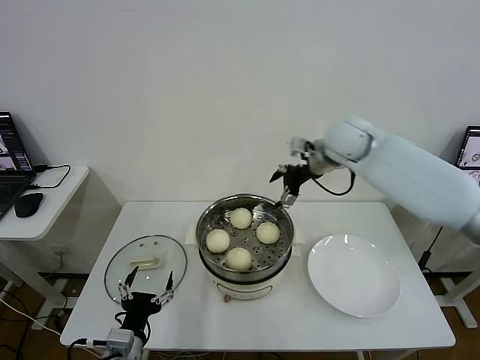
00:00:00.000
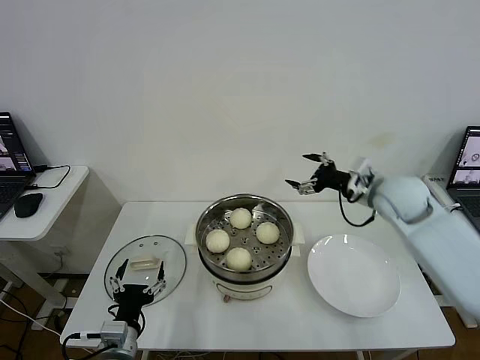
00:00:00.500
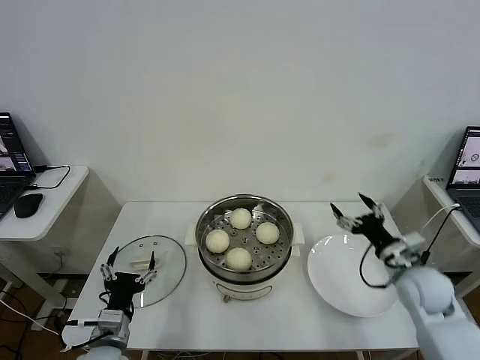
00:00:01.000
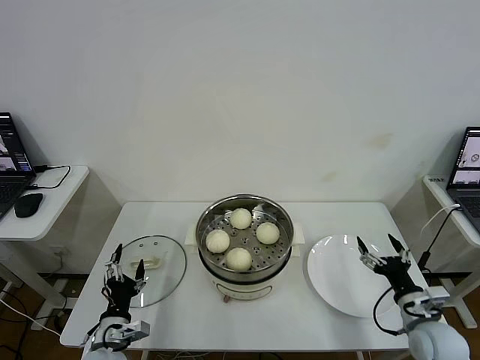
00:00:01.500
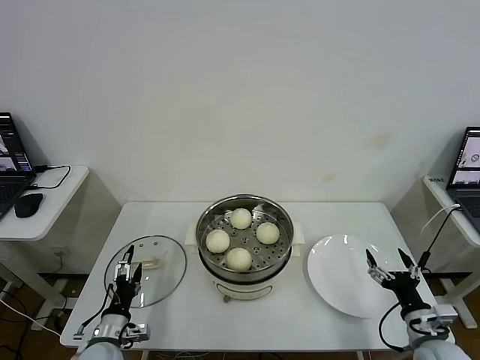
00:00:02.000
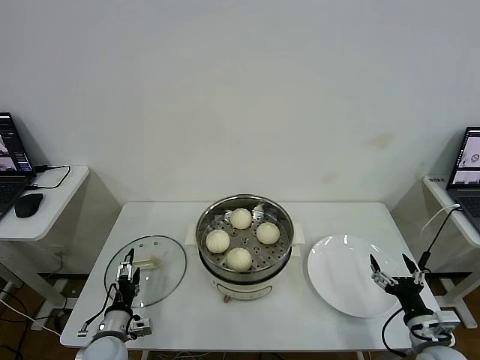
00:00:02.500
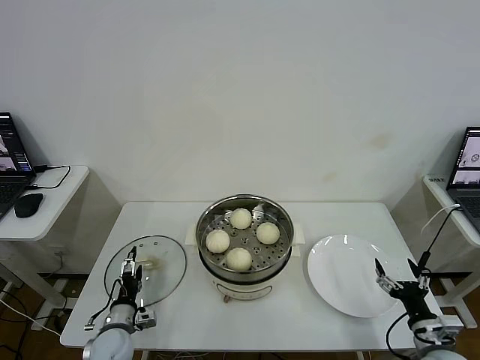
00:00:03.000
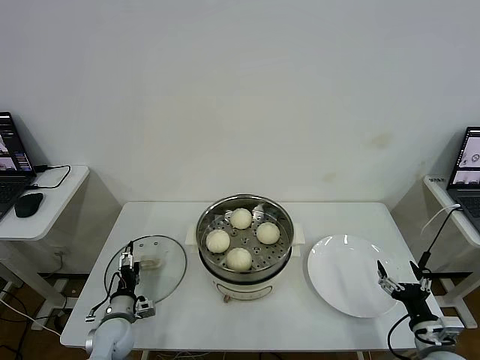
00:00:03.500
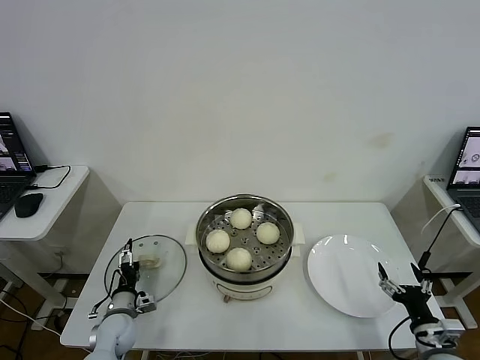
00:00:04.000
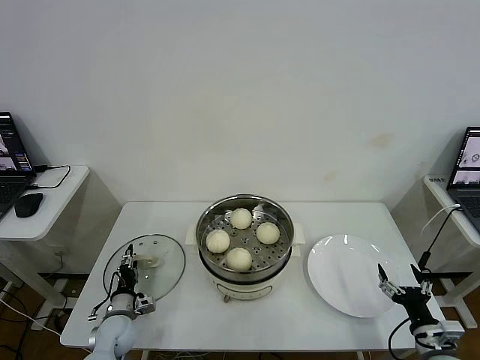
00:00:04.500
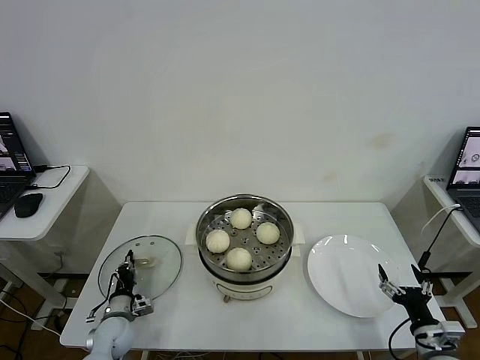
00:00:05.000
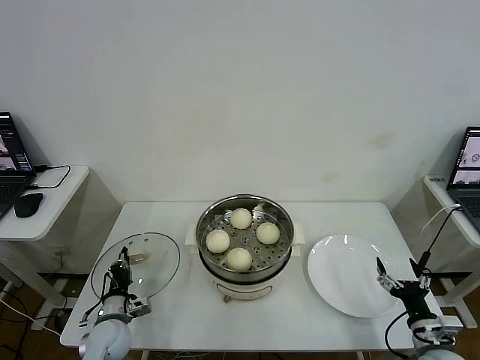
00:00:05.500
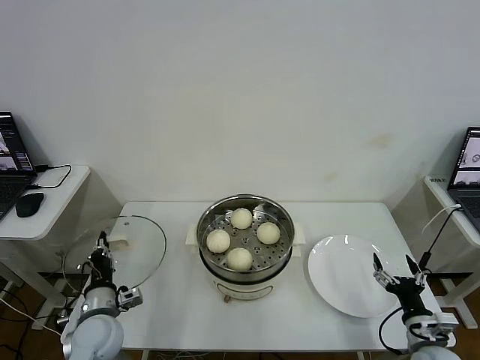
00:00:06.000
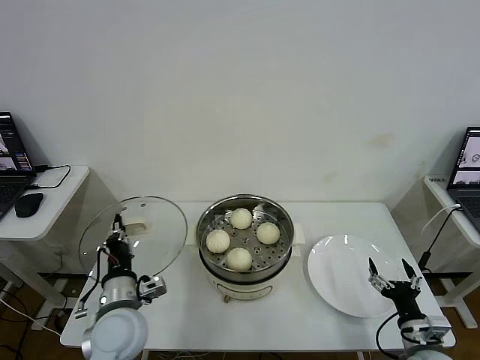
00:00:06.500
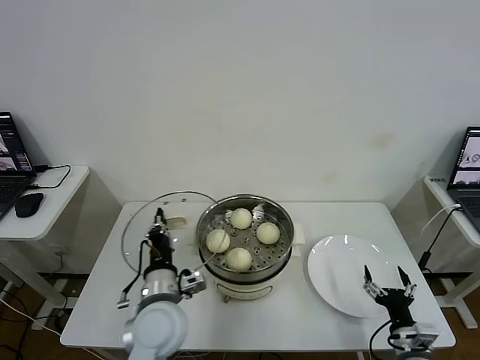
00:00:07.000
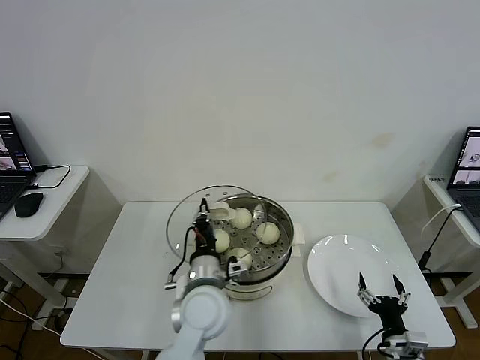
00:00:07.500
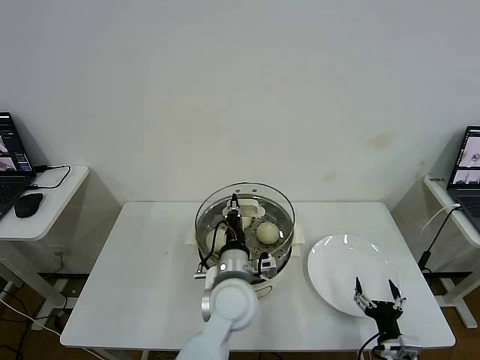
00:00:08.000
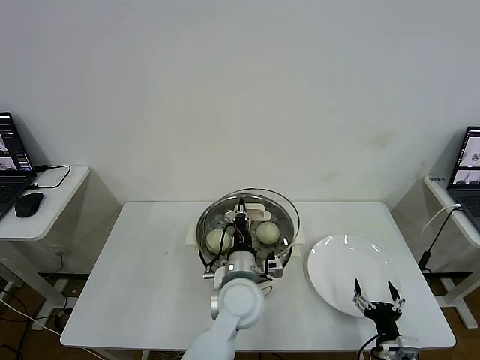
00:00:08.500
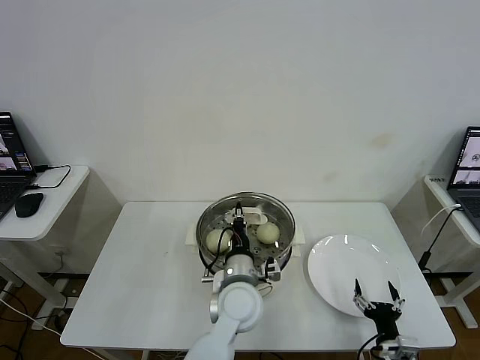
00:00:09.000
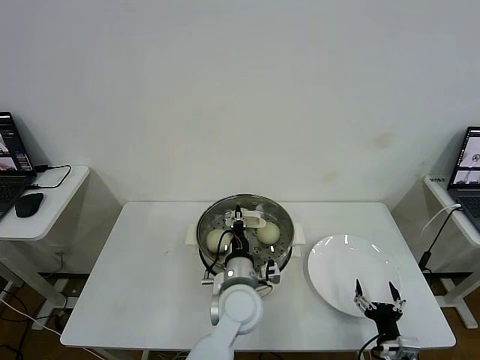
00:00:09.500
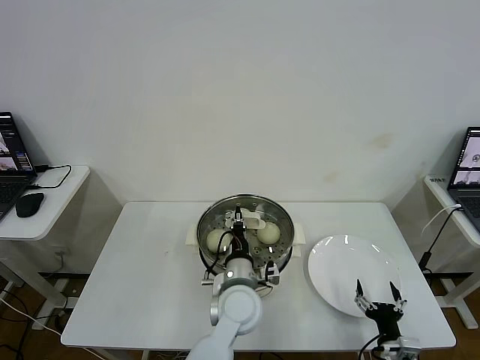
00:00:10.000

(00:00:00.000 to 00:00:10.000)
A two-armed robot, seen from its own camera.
Task of the whole recording: take steamed baozi put them in steamer then cover it.
Step, 00:00:00.000 - 00:00:05.000: Grasp the pot lid with left gripper.
00:00:00.000 - 00:00:02.000: The right gripper heads backward, downward and to the right, covering some 50 cm. Meanwhile the left gripper travels to the left, downward and forward by some 10 cm.
00:00:02.000 - 00:00:04.000: The left gripper goes roughly 10 cm forward and downward.
00:00:04.000 - 00:00:06.000: The left gripper moves upward, approximately 10 cm, and closes up.
00:00:06.000 - 00:00:08.000: The left gripper is displaced to the right by roughly 30 cm; the right gripper moves to the left, approximately 5 cm.
00:00:08.000 - 00:00:10.000: The grippers make only small movements.

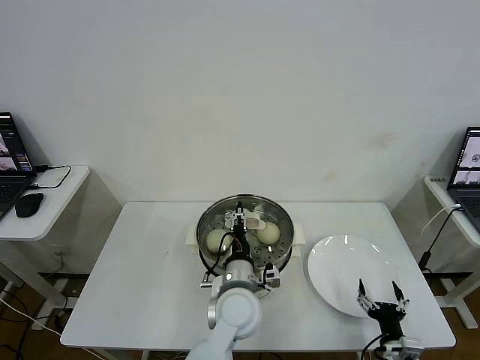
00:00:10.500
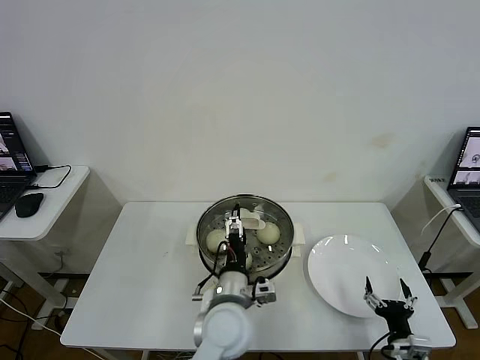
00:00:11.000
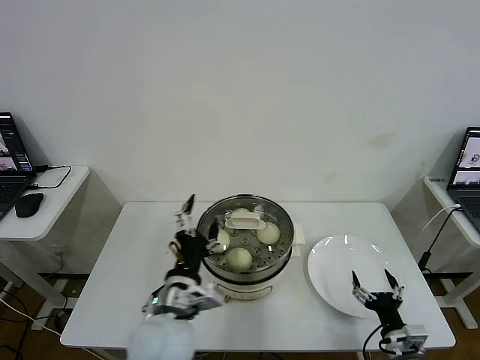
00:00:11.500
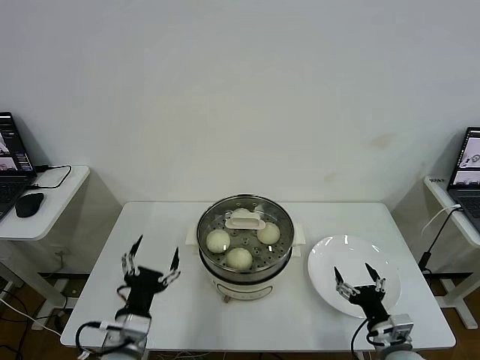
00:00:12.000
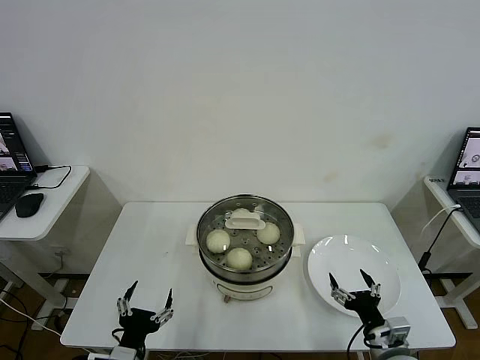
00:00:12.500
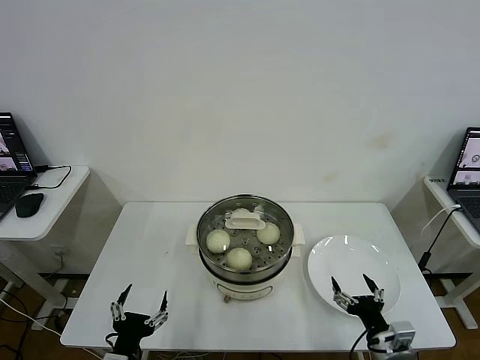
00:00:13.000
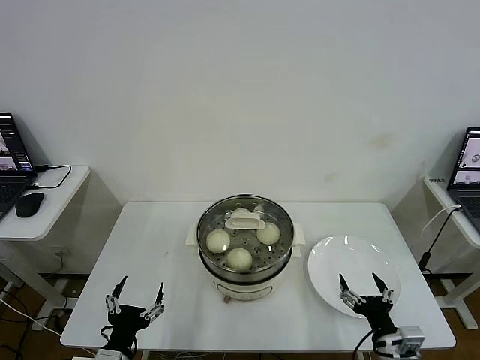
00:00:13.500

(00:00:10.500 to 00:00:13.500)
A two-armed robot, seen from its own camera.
Task of the whole recording: take steamed baozi put them in steamer then cover it.
00:00:10.500 - 00:00:12.000: The right gripper moves upward, approximately 5 cm. The left gripper goes about 25 cm to the left and backward, and opens up.
00:00:12.000 - 00:00:13.500: The right gripper ends up roughly 5 cm from where it was. Meanwhile the left gripper travels downward and backward by approximately 10 cm.
